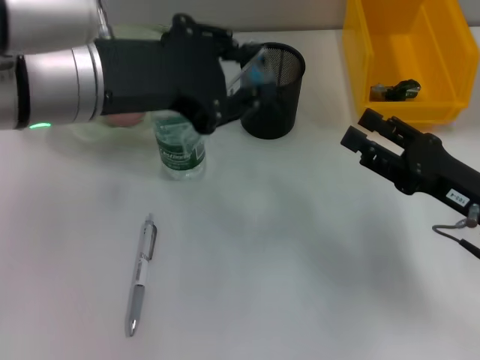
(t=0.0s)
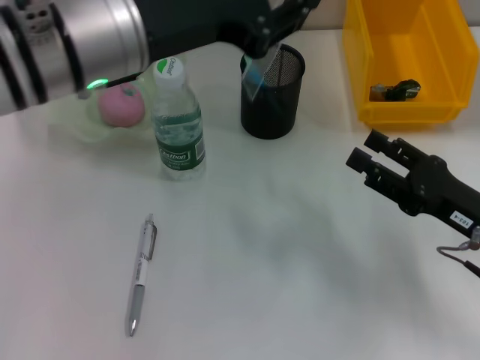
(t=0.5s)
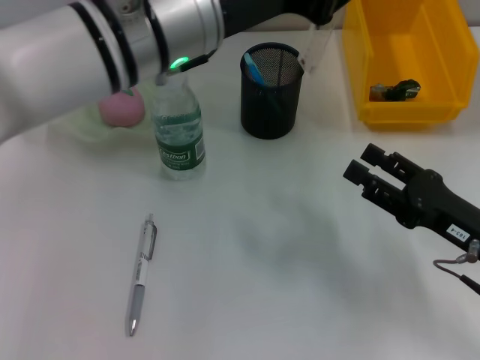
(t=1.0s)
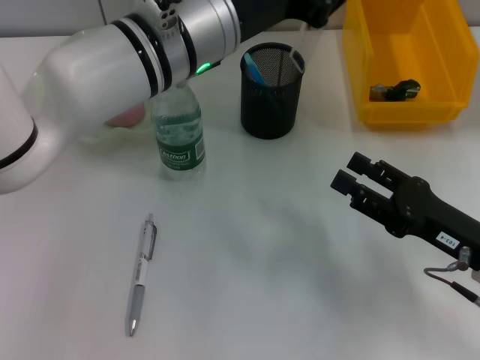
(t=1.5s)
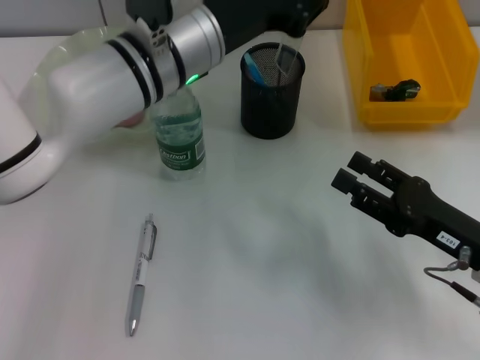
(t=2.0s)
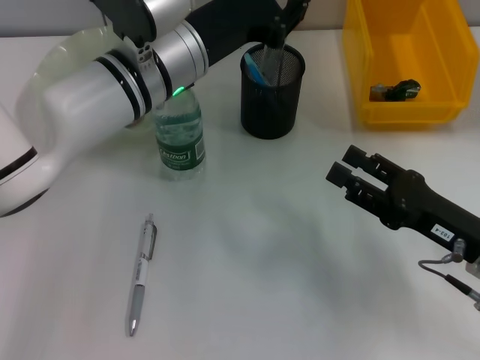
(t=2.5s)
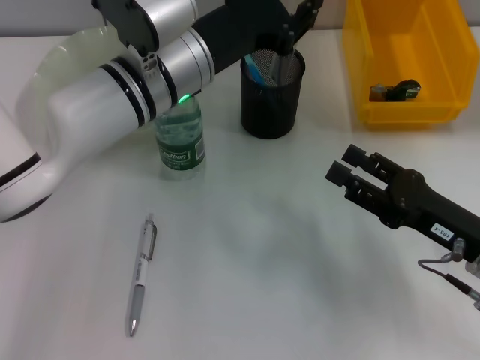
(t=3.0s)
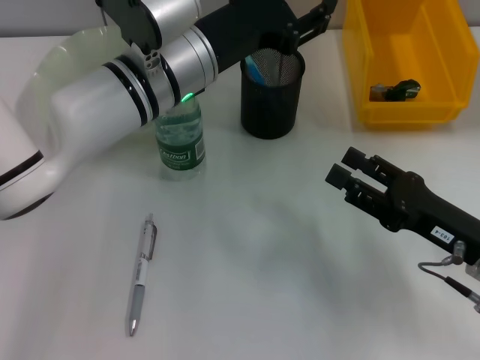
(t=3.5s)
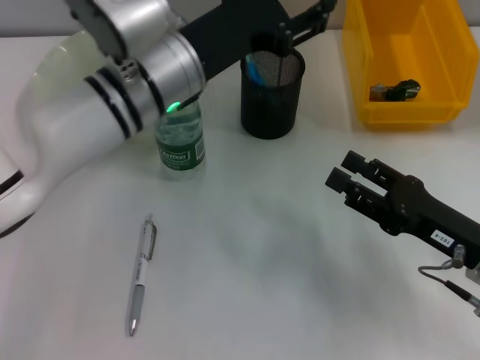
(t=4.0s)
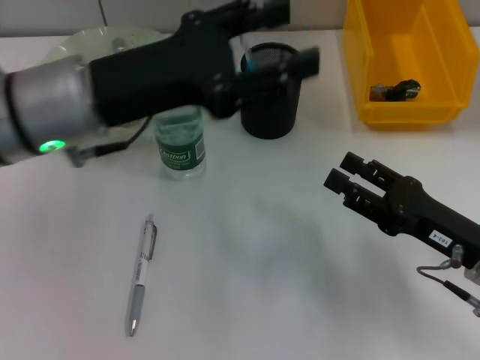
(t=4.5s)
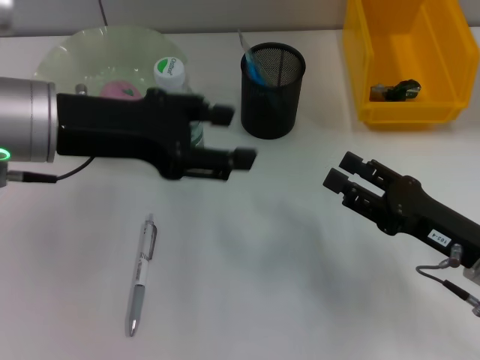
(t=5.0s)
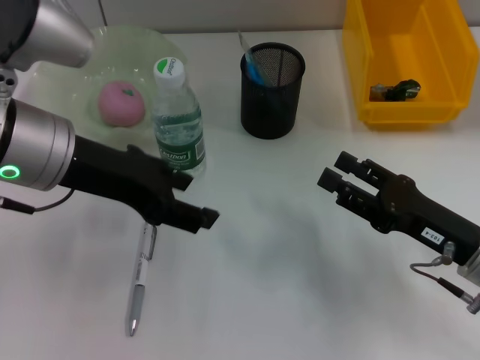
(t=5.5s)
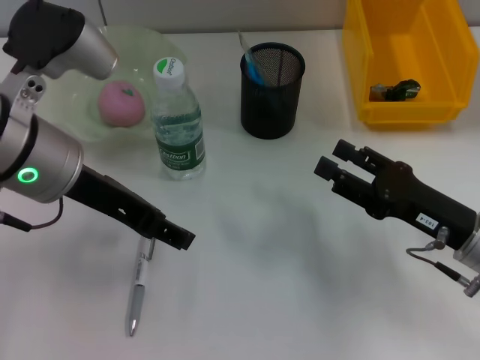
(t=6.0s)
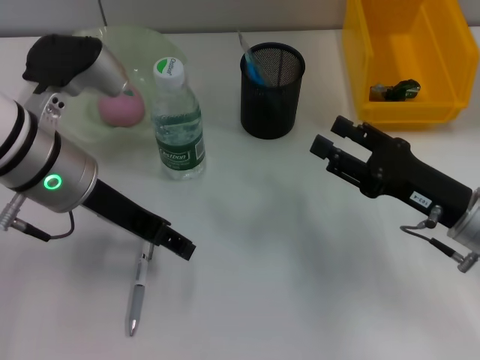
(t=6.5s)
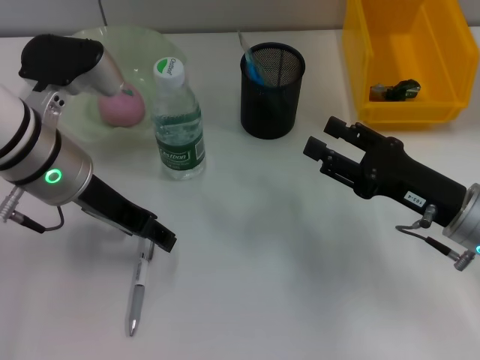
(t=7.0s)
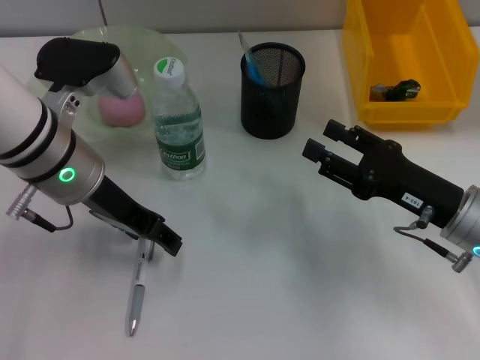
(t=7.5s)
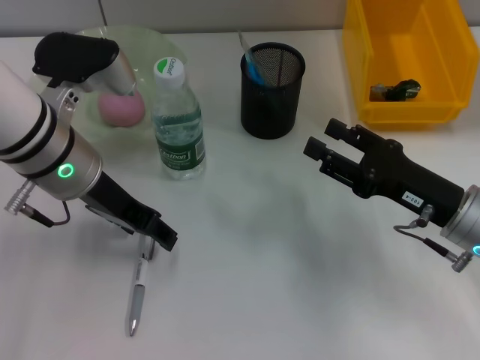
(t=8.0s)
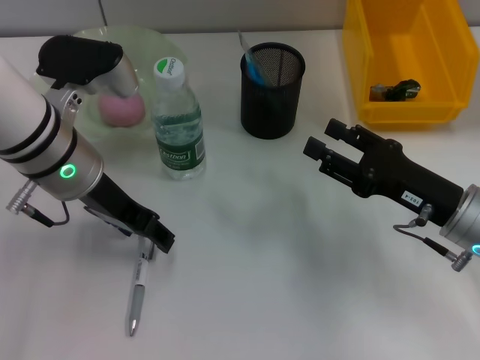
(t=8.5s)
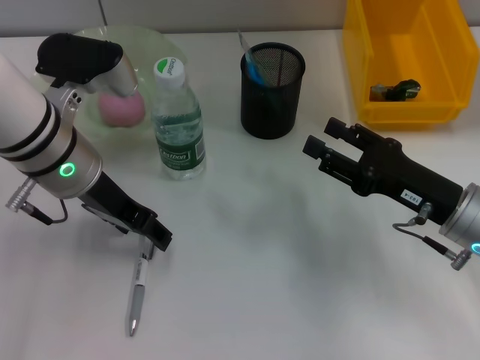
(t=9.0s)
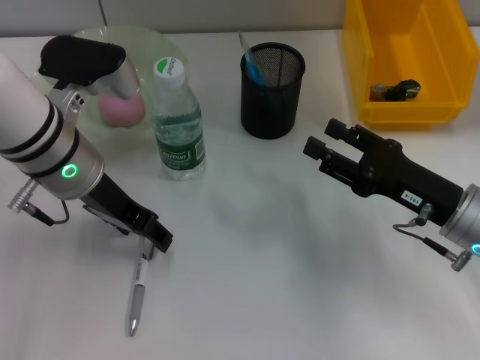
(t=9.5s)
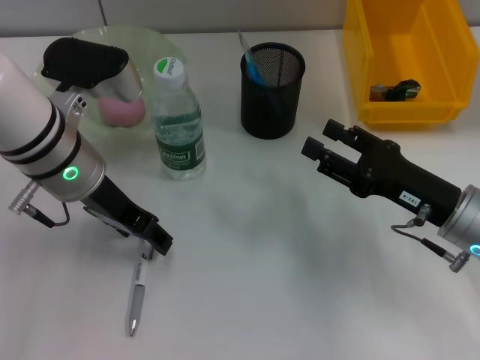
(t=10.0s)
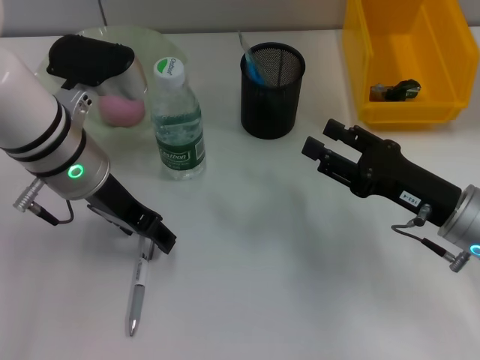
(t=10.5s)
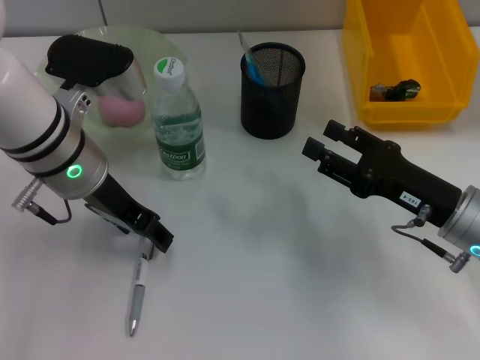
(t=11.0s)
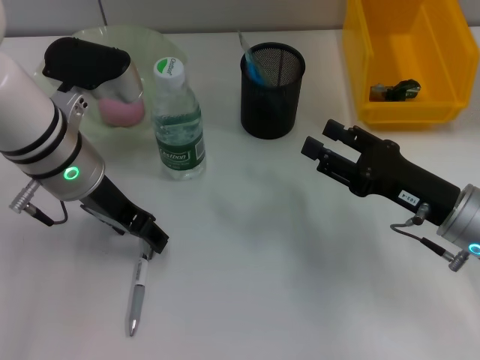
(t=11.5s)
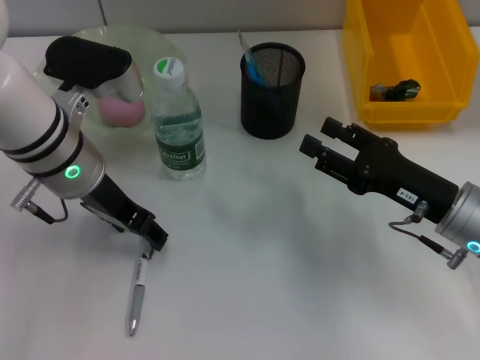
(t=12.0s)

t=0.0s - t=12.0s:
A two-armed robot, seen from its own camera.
Step, t=0.0s - t=3.5s: Place the ruler into the pen holder with the left hand.
t=0.0s - t=2.0s: The left gripper shifts roughly 15 cm forward, downward and to the right.
t=2.0s - t=4.0s: The left gripper opens its fingers.
t=4.0s - t=6.0s: The left gripper is displaced to the left and backward by about 10 cm.
t=6.0s - t=8.0s: The left gripper ends up some 5 cm from where it was.
t=8.0s - t=10.0s: The two grippers keep their place.
t=10.0s - t=12.0s: Both grippers stay about where they are.

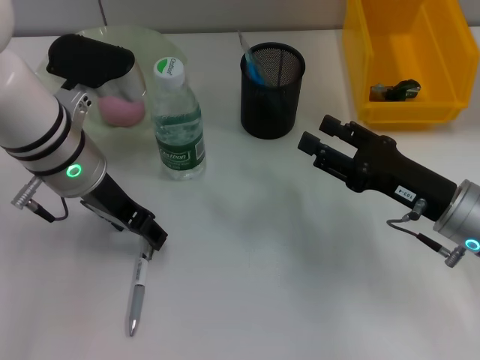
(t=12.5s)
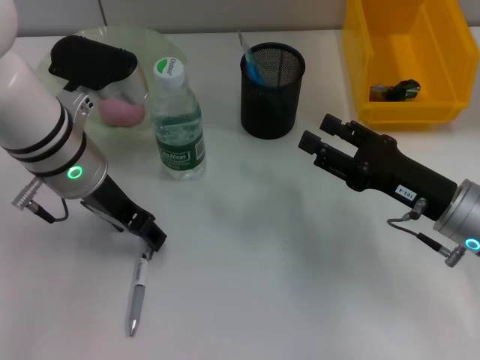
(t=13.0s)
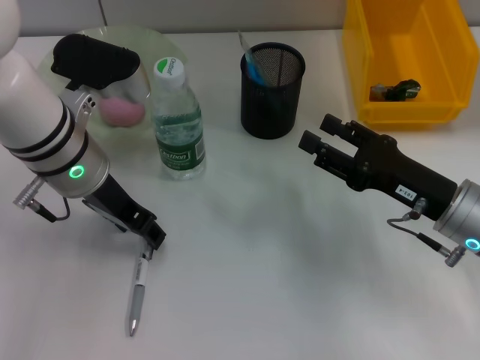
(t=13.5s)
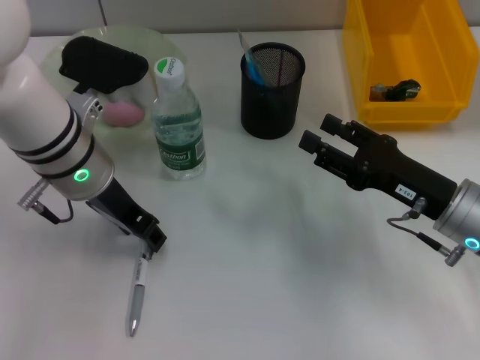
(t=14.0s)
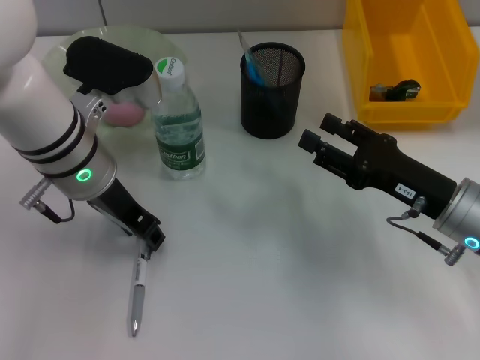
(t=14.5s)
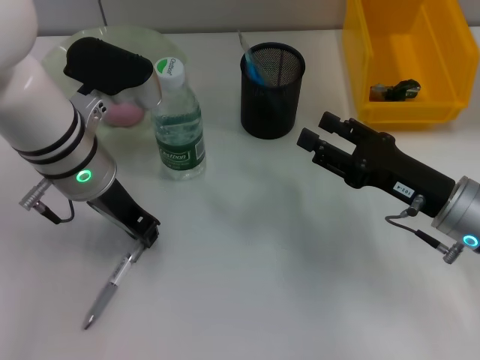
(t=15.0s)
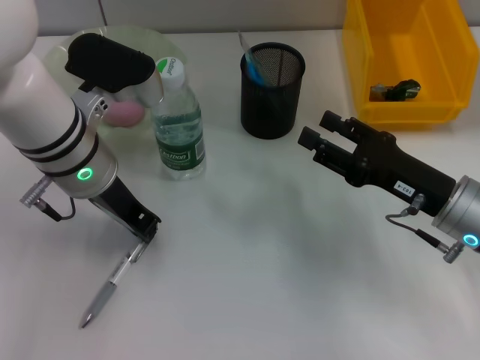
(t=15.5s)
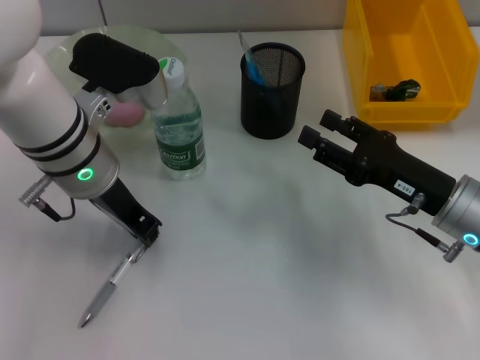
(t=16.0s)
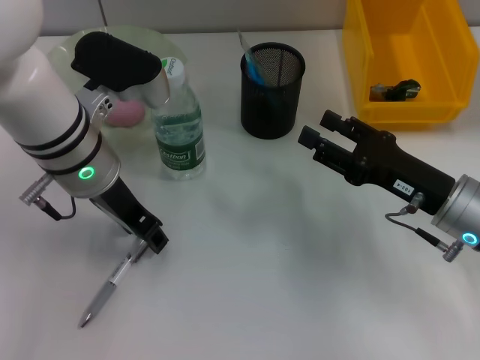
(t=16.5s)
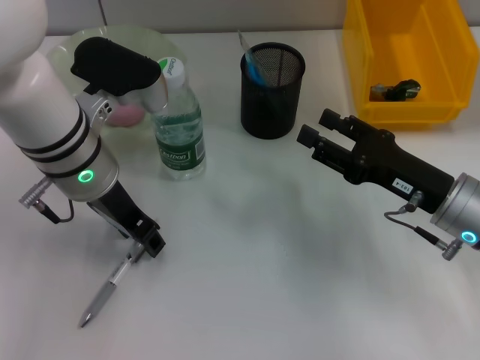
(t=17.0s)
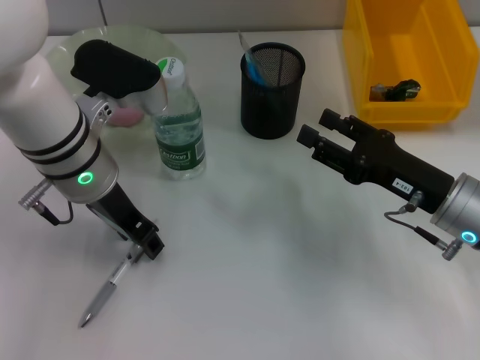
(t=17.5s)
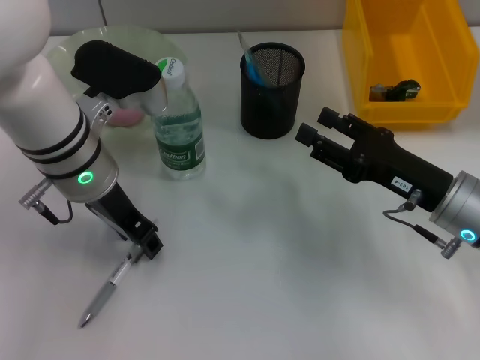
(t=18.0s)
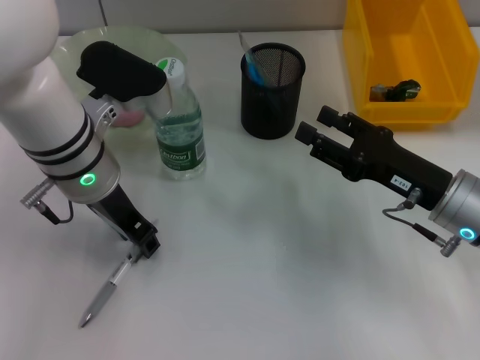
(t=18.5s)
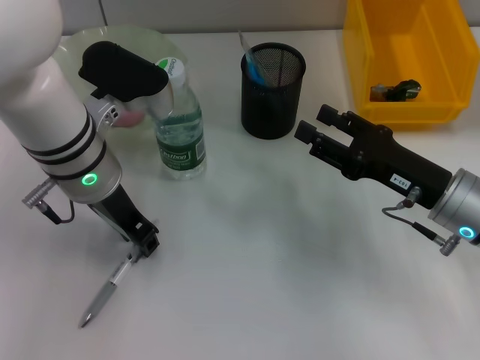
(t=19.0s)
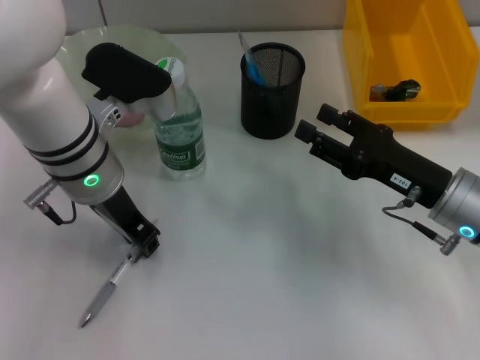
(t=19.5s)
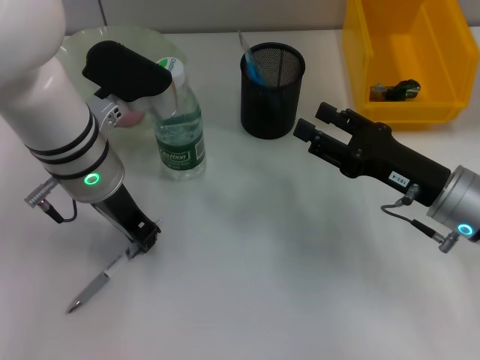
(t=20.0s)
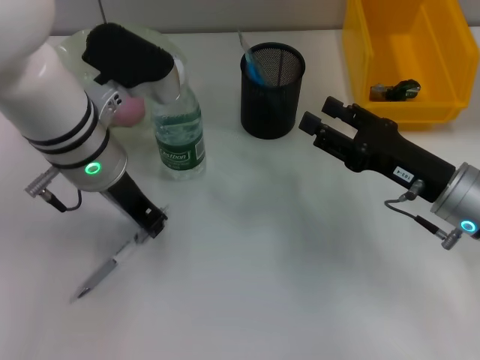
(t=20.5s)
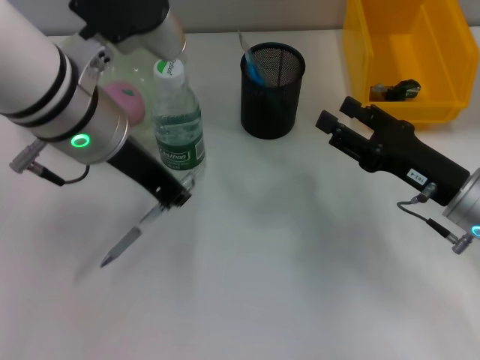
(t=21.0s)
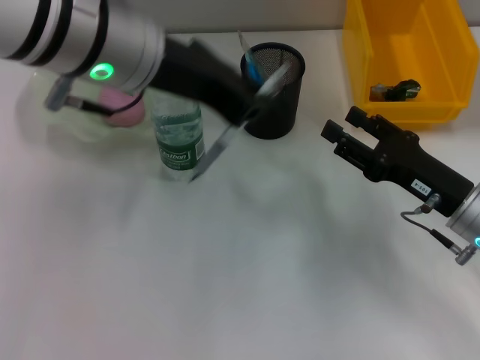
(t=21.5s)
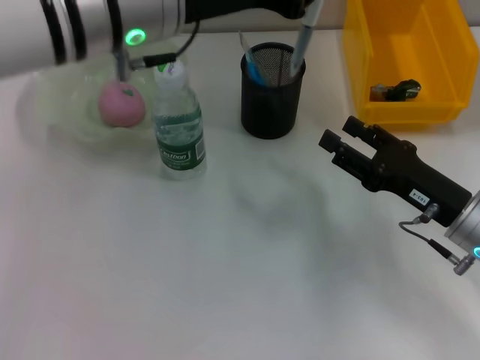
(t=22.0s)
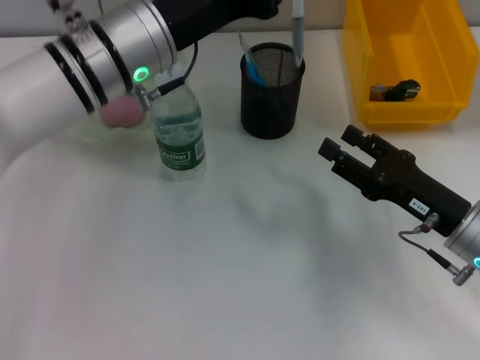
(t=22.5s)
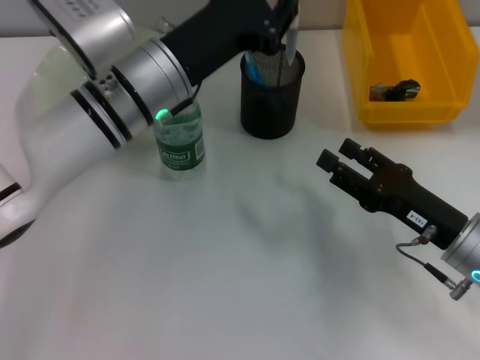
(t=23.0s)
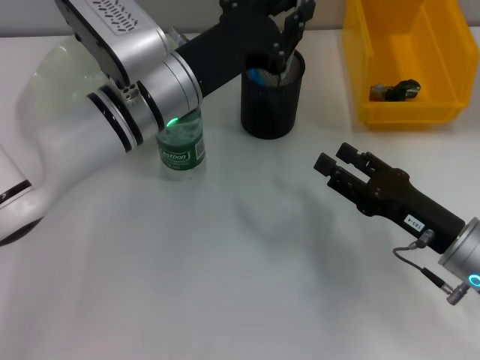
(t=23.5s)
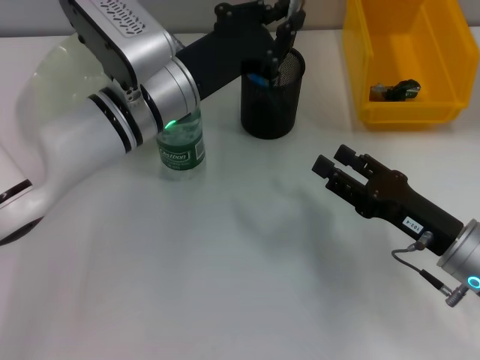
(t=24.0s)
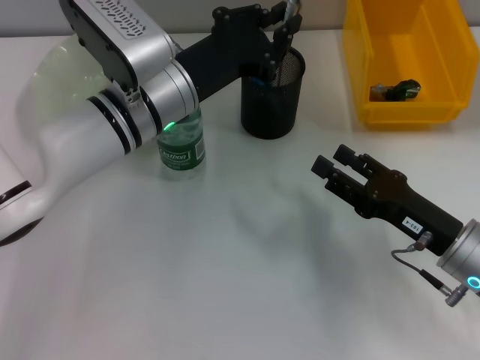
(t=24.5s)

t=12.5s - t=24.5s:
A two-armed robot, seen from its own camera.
Step, t=12.5s - t=19.5s: Grab the gray spring-action pen with the left hand.
t=12.5s - t=14.5s: The left gripper closes up.
t=14.5s - t=16.5s: The left gripper closes and opens again.
t=16.5s - t=18.5s: Both grippers stay put.
t=18.5s - t=20.5s: The left gripper closes up.
t=20.5s - t=22.5s: The left gripper goes upward and returns, about 10 cm each way.
t=22.5s - t=24.5s: The left gripper moves downward, about 5 cm.

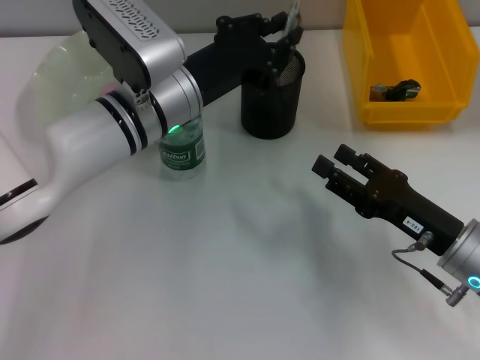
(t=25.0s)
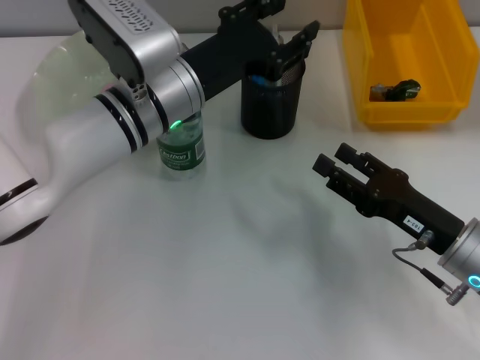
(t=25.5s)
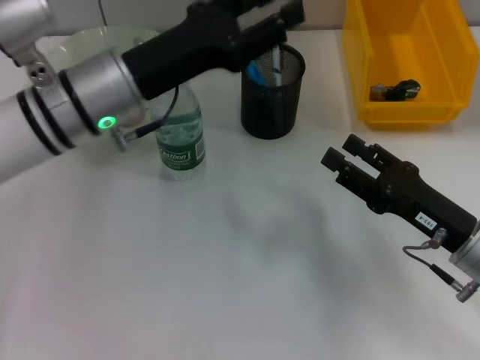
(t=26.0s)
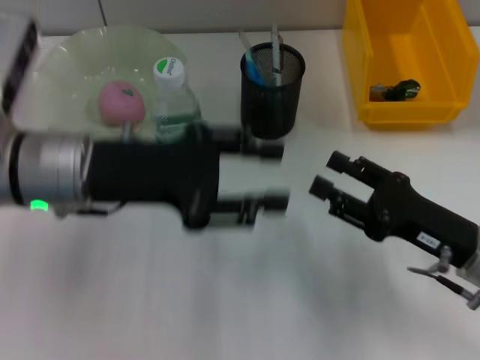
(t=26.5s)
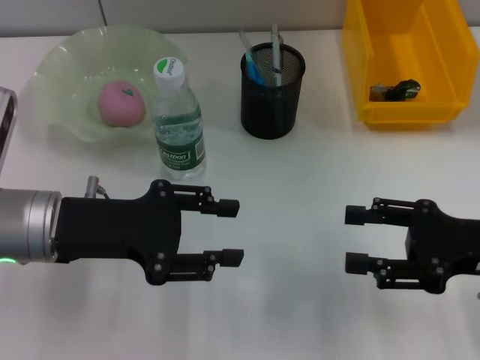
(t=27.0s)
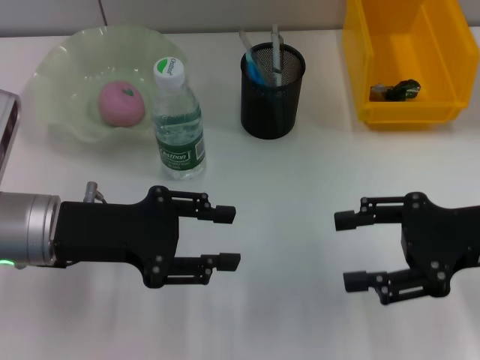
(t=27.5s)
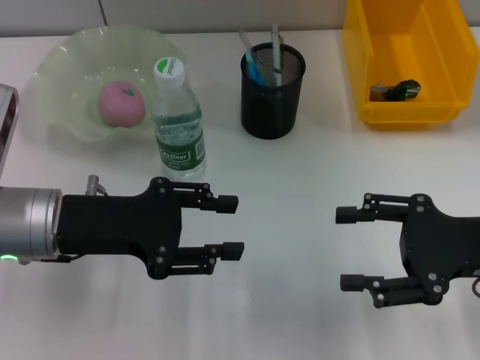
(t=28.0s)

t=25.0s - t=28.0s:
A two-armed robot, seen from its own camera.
t=25.0s - t=26.5s: The left gripper is displaced to the left and backward by about 10 cm, and opens its fingers.
t=26.5s - t=28.0s: The right gripper travels upward by about 5 cm, while the left gripper moves roughly 5 cm.
